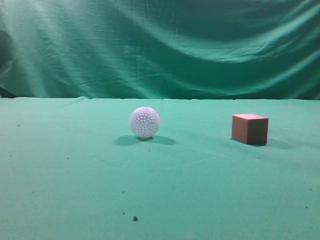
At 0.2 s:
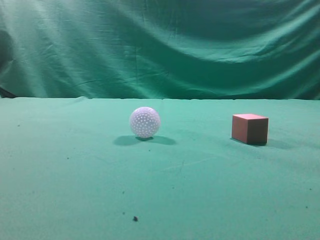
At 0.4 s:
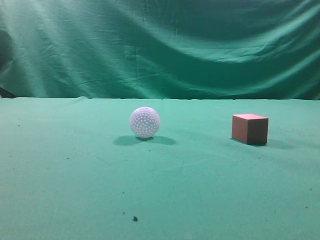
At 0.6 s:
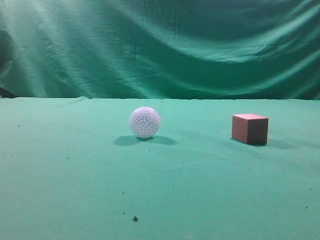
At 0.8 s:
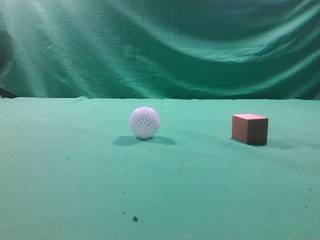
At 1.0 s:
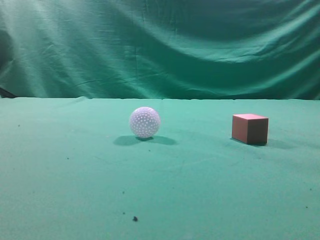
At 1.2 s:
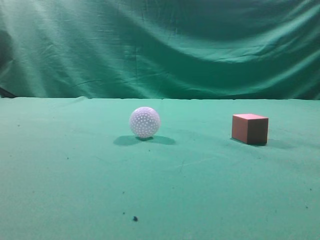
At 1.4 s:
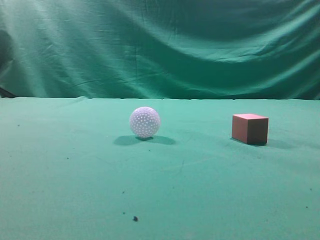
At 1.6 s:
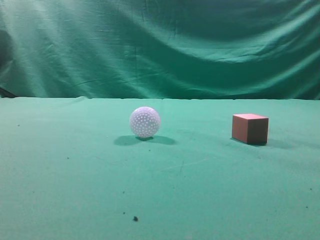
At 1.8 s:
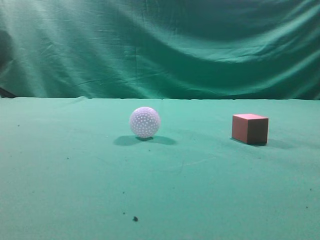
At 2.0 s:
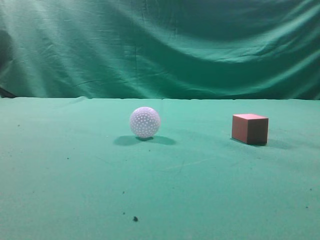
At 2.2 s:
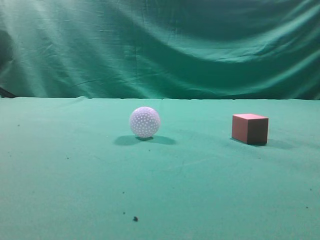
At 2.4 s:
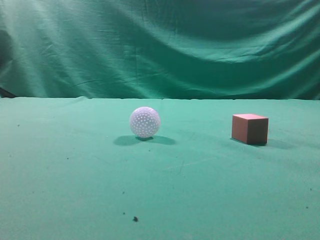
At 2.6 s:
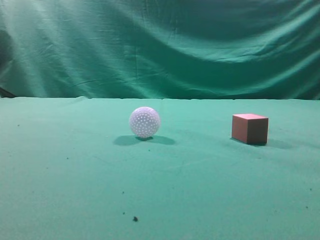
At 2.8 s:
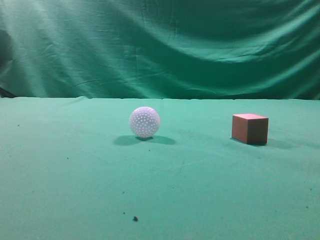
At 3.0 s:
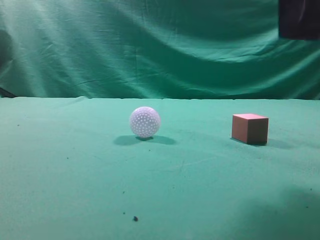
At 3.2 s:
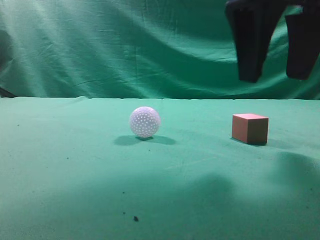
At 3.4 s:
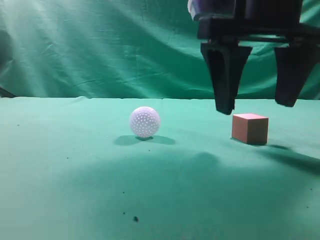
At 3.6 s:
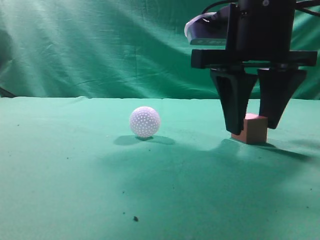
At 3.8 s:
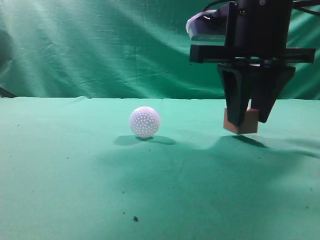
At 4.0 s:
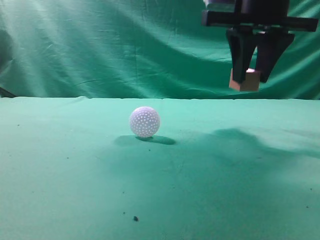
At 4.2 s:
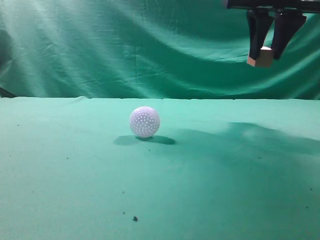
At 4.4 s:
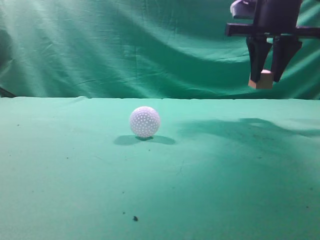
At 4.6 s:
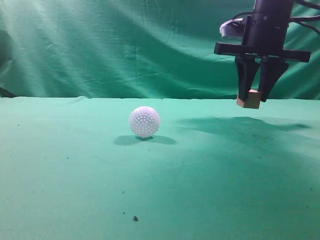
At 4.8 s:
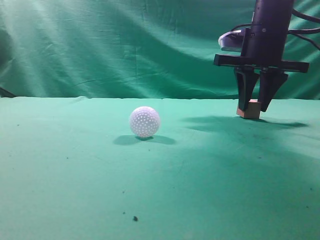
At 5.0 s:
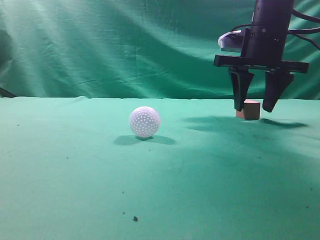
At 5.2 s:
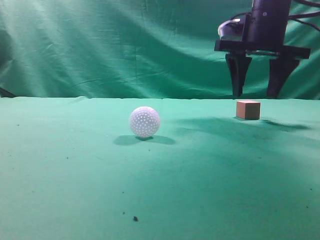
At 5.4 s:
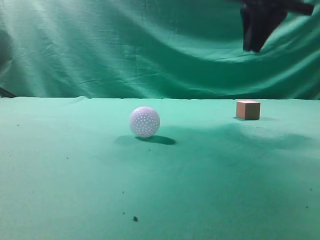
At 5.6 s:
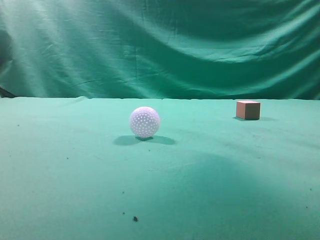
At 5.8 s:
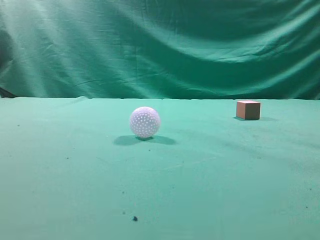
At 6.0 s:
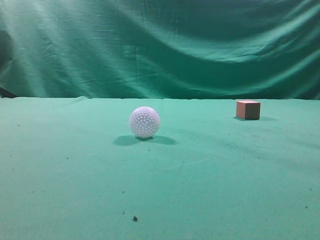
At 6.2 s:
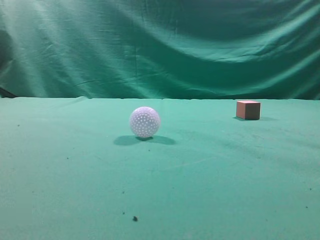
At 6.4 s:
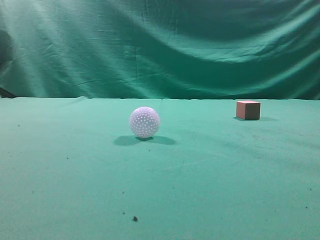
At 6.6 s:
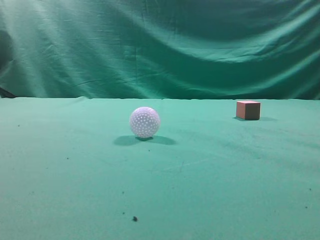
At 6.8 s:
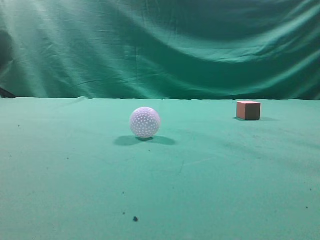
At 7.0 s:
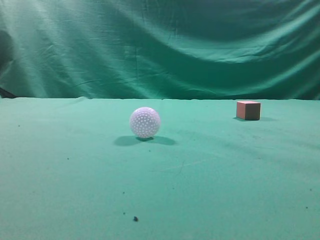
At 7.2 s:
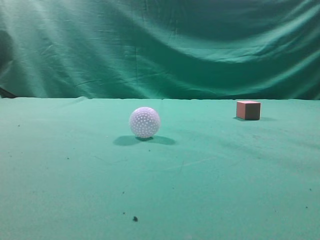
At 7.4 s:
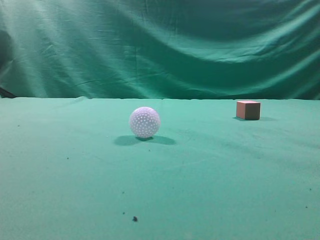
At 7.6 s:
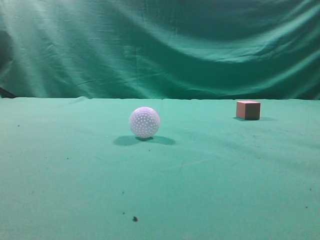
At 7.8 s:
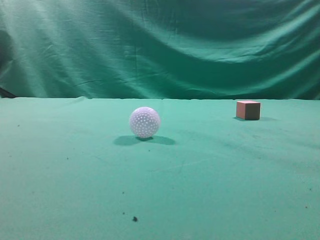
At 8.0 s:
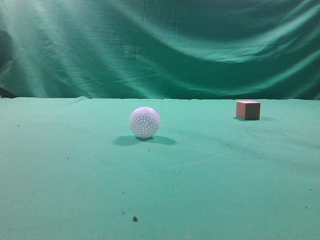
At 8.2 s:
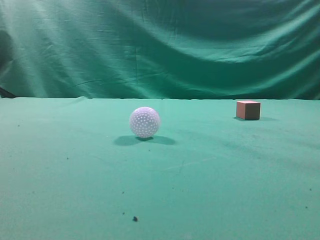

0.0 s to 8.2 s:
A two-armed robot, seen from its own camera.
Task of the whole recording: pick up the cube block and place it in another position on the table.
Step, 0.0 to 3.8 s: Pick up the small cube.
Step, 4.0 to 5.0 s: Place the small cube on the ahead of the table.
1.6 to 3.2 s: The right gripper goes approximately 25 cm forward and to the left, and opens its fingers.
3.2 to 5.0 s: The right gripper is displaced forward by approximately 15 cm, and closes, then reopens.
5.0 to 6.6 s: The right gripper is displaced backward by roughly 50 cm, and closes.
